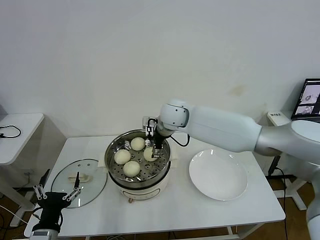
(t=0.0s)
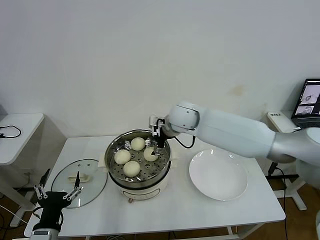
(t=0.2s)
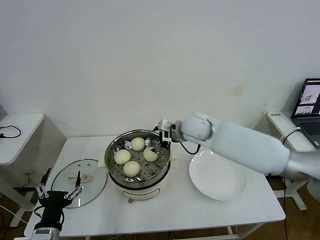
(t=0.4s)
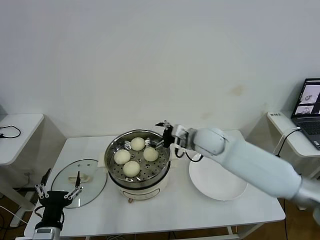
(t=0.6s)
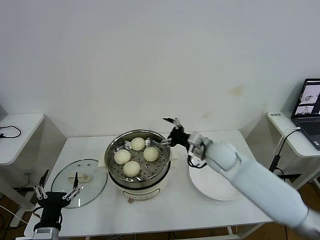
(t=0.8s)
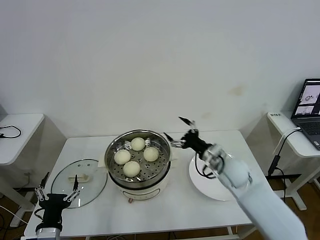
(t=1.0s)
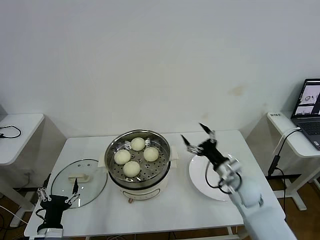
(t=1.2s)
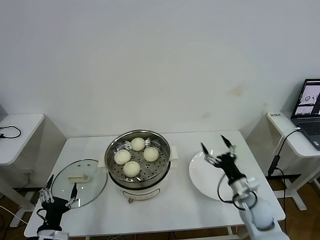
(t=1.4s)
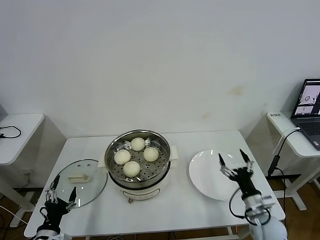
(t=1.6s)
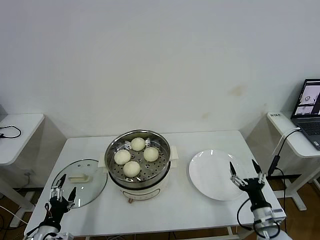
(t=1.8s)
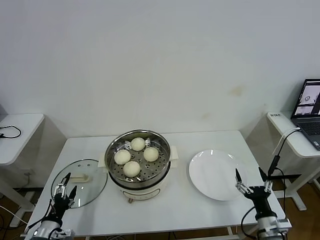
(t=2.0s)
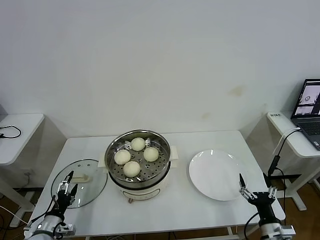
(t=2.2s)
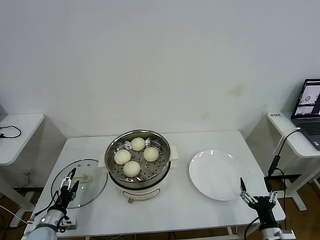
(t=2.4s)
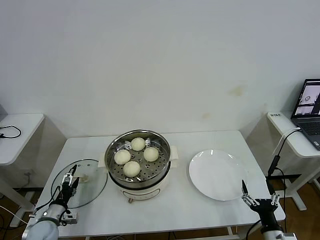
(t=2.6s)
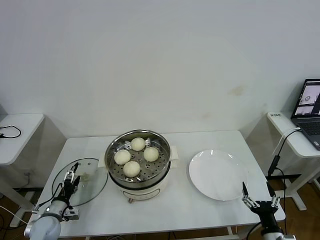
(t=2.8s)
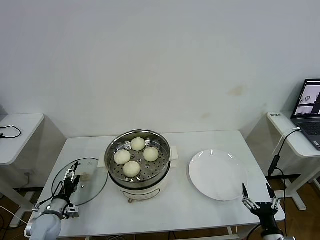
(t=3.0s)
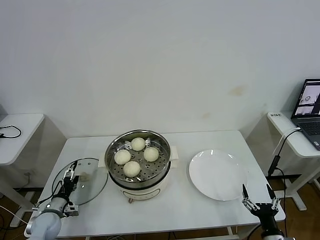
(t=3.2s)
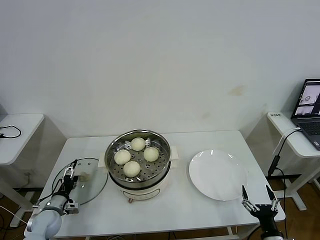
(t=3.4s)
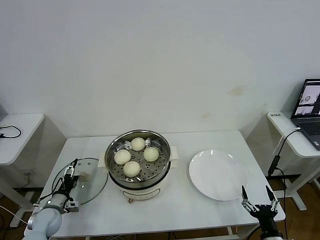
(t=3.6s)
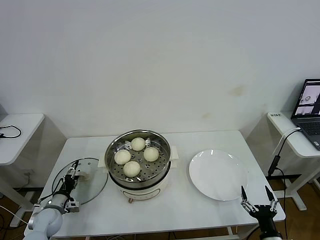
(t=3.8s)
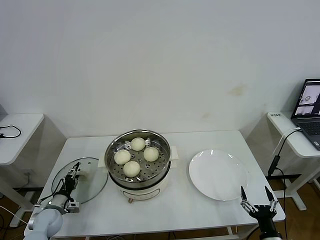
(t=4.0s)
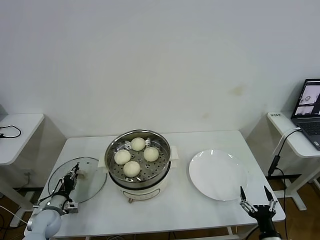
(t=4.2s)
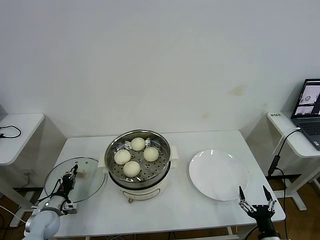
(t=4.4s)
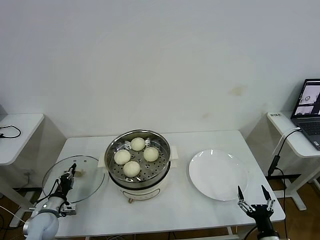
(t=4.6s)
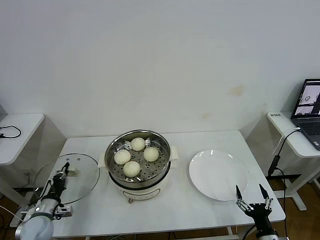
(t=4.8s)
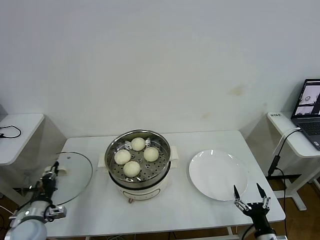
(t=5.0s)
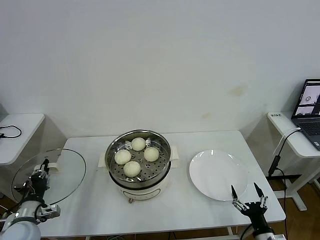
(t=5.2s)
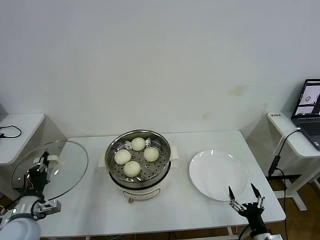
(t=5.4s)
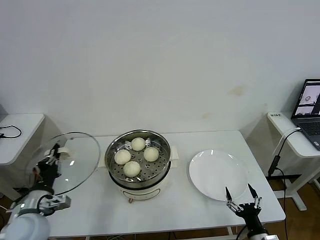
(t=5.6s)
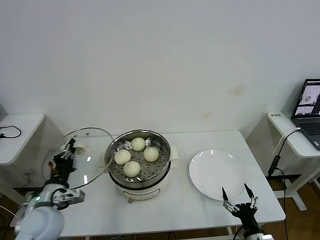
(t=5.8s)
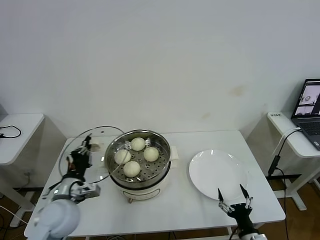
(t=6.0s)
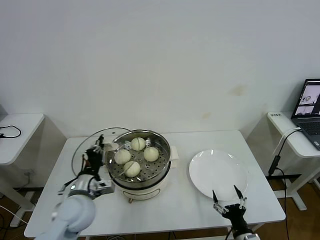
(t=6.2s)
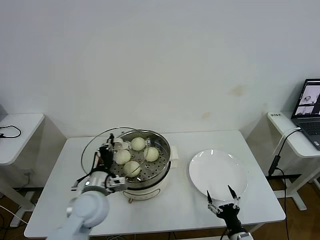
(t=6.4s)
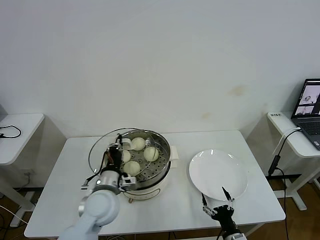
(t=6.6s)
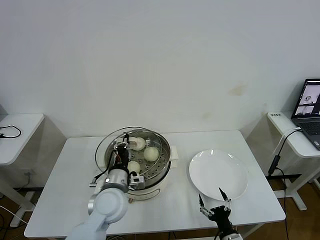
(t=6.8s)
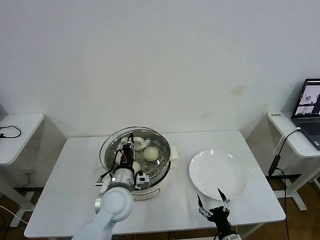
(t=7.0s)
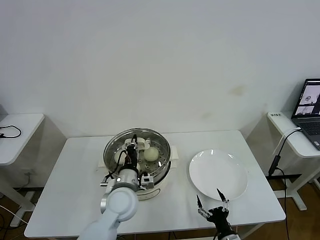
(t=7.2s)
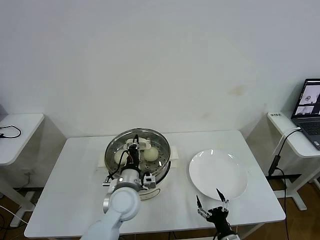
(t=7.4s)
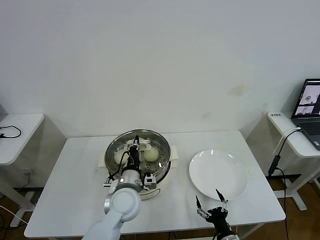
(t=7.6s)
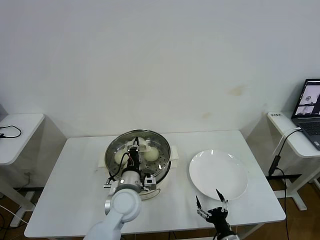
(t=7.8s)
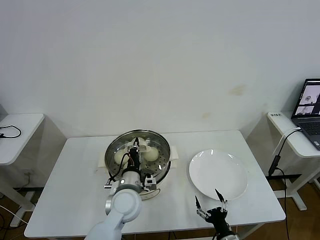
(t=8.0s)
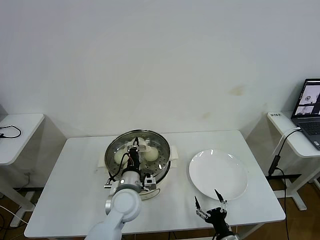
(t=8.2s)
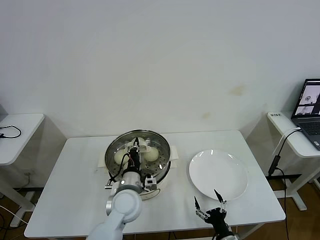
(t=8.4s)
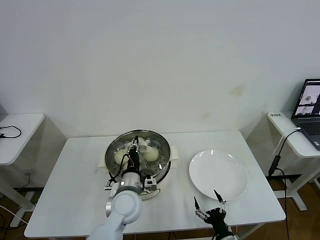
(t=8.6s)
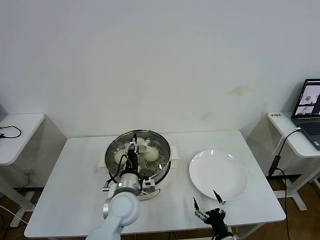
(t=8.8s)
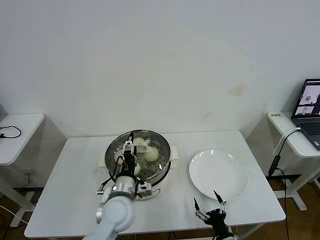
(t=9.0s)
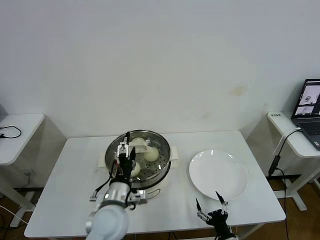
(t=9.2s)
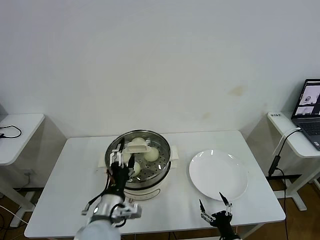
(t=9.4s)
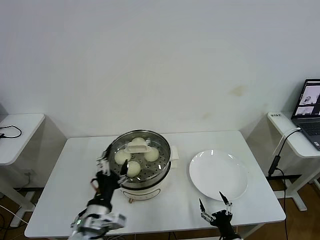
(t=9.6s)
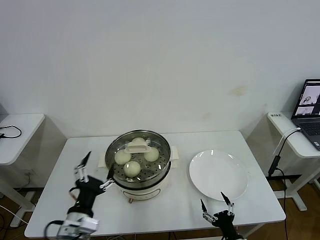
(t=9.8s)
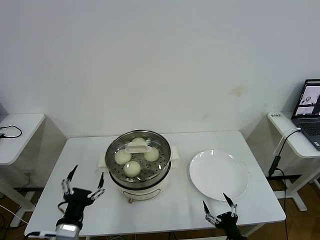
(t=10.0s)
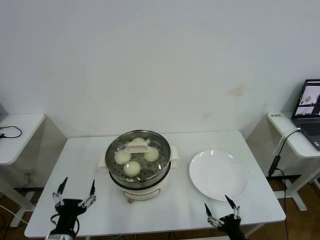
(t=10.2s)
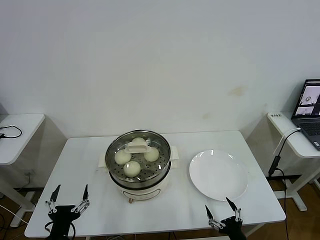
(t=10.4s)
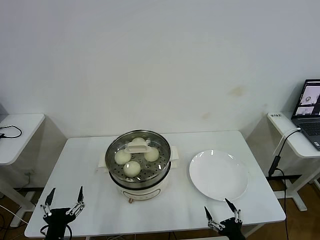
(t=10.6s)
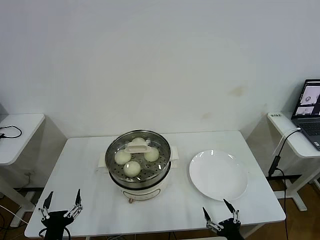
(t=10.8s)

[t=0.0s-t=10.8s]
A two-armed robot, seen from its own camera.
Task of the whole recording: take steamed baozi put them in steamer then cover it.
Step, t=0.0s to t=4.4s: Grasp the pot lid with left gripper.
Step, t=4.6s to t=9.0s: Place the pot lid on the steamer with left gripper.
t=0.0s to t=1.6s: The left gripper moves downward and to the left, roughly 10 cm. Meanwhile the right gripper heads to the right, backward and downward, covering roughly 50 cm.
t=1.6s to t=3.0s: The right gripper heads backward, covering approximately 10 cm. Meanwhile the left gripper heads forward, downward and to the left, covering about 15 cm.
t=3.0s to t=4.6s: The left gripper closes up.
t=4.6s to t=6.2s: The left gripper is displaced to the right and upward by about 25 cm. Meanwhile the right gripper shifts approximately 5 cm to the left.
t=6.2s to t=7.8s: The left gripper heads to the right, covering approximately 15 cm. Meanwhile the right gripper moves some 5 cm.
t=7.8s to t=9.2s: The left gripper shifts some 5 cm backward, and opens up.
t=9.2s to t=10.8s: The left gripper heads to the left and backward, covering roughly 25 cm, while the right gripper is displaced upward by roughly 5 cm.
